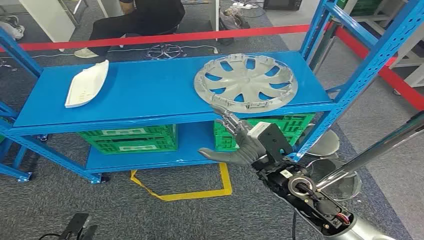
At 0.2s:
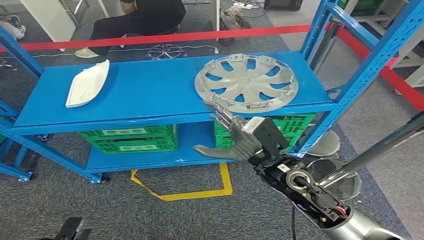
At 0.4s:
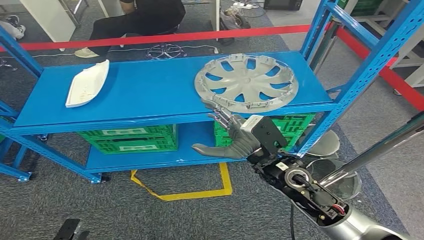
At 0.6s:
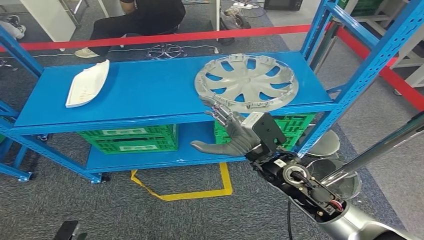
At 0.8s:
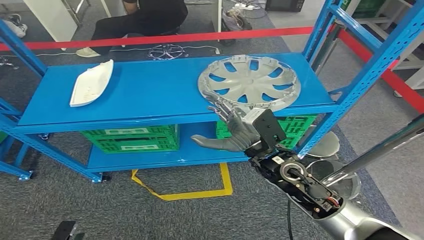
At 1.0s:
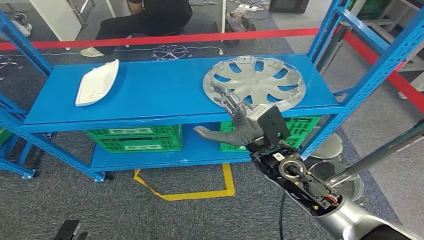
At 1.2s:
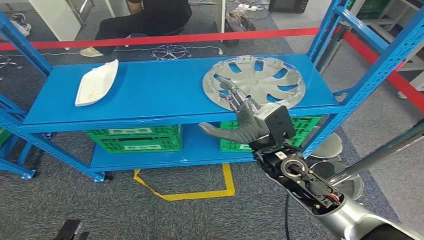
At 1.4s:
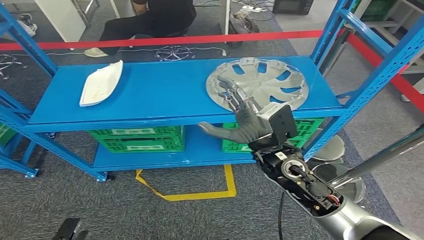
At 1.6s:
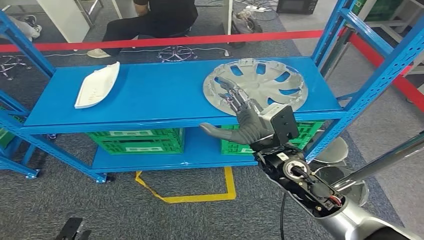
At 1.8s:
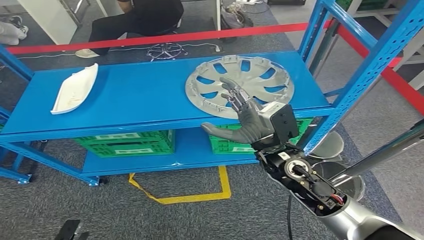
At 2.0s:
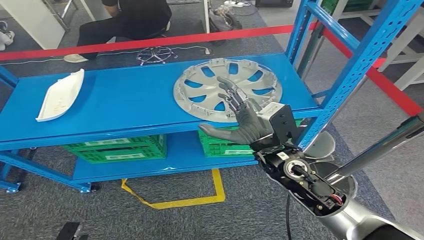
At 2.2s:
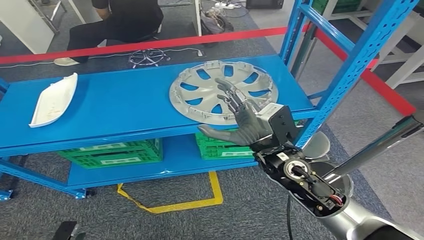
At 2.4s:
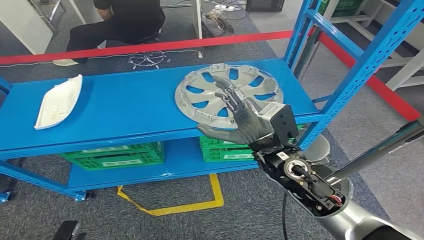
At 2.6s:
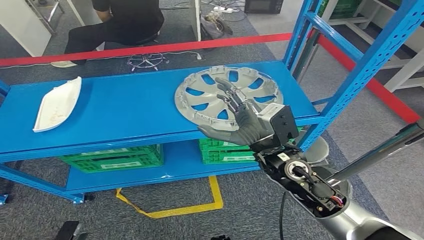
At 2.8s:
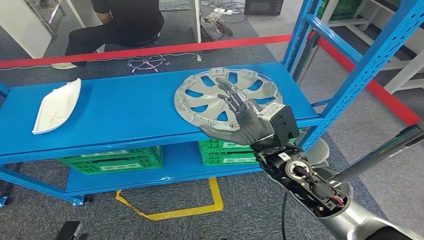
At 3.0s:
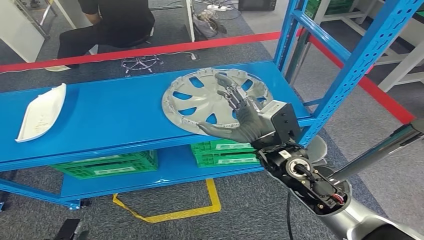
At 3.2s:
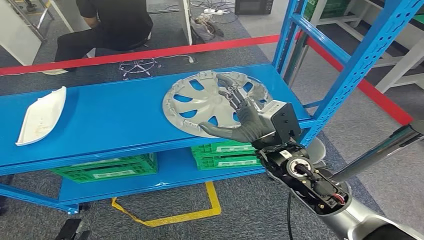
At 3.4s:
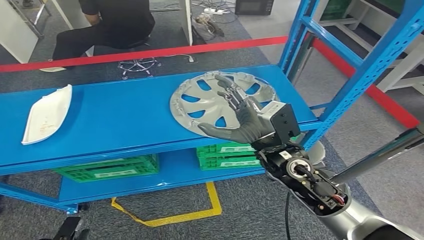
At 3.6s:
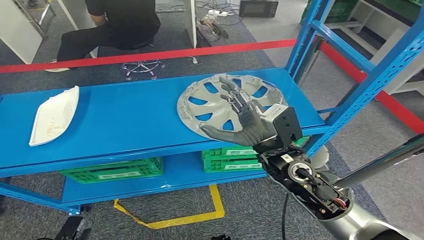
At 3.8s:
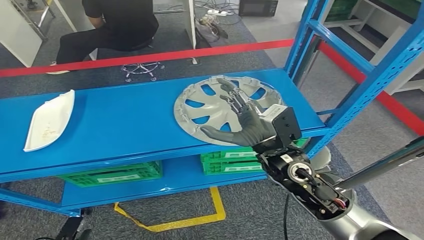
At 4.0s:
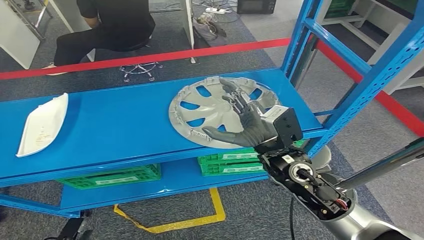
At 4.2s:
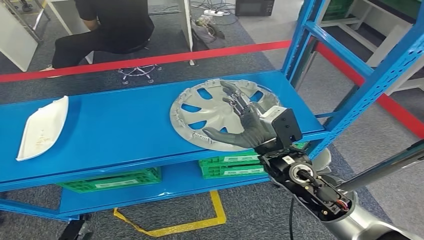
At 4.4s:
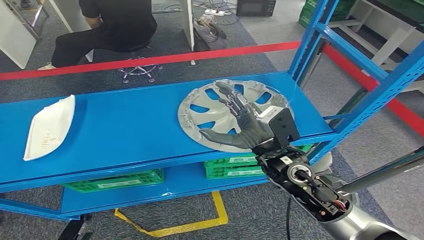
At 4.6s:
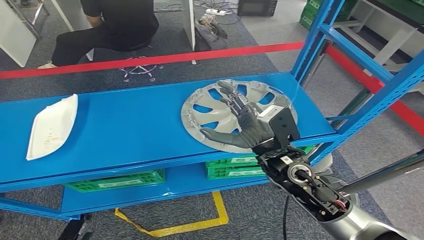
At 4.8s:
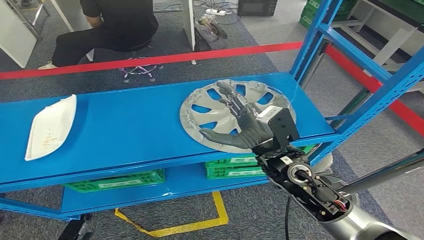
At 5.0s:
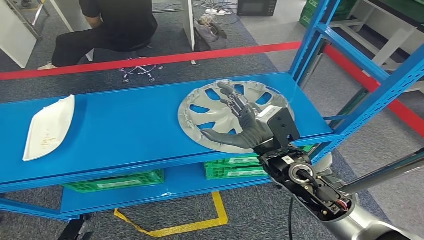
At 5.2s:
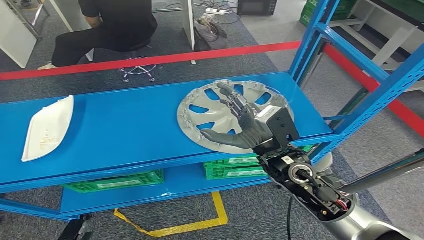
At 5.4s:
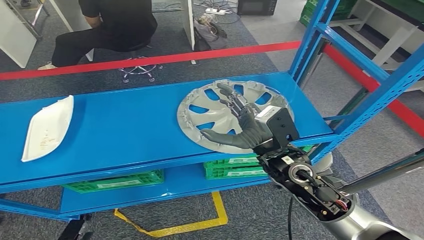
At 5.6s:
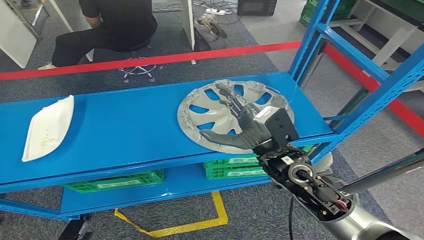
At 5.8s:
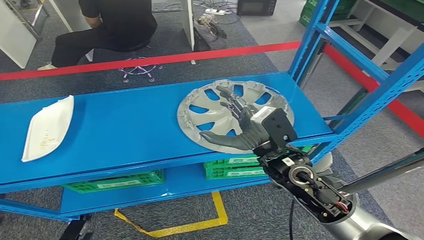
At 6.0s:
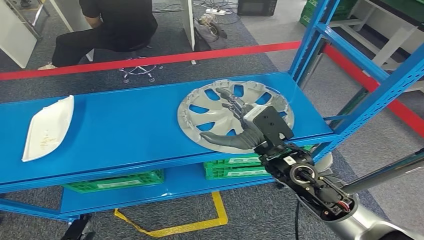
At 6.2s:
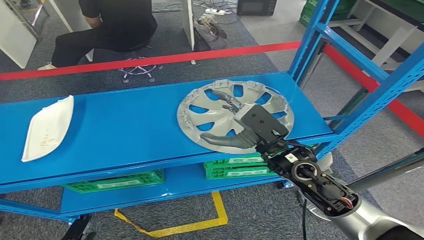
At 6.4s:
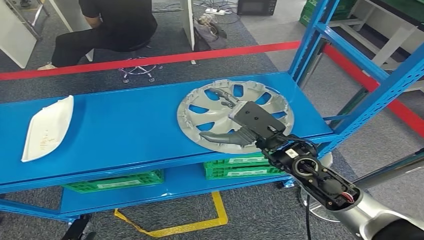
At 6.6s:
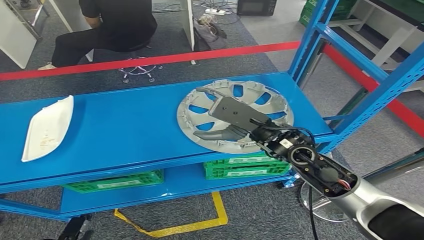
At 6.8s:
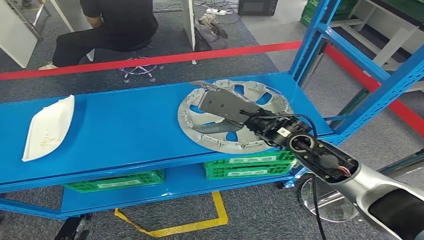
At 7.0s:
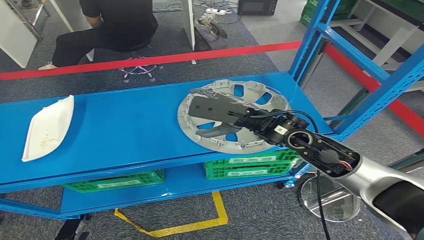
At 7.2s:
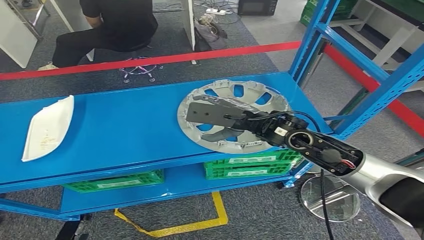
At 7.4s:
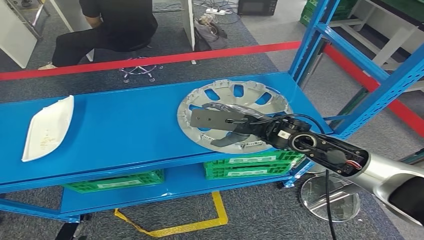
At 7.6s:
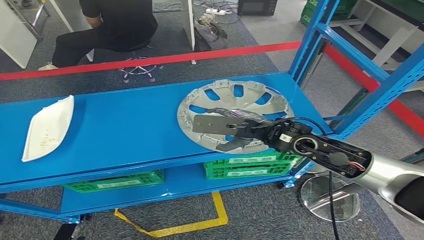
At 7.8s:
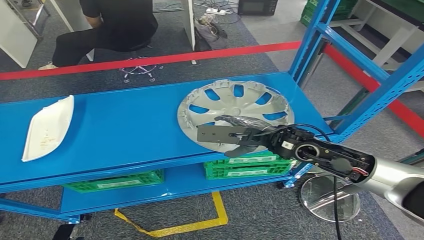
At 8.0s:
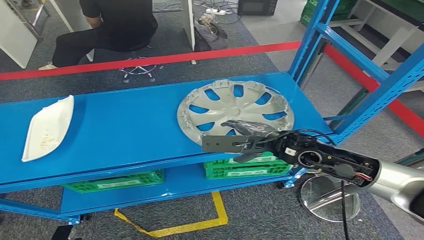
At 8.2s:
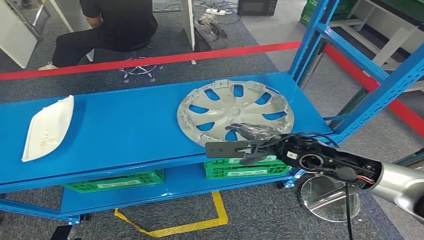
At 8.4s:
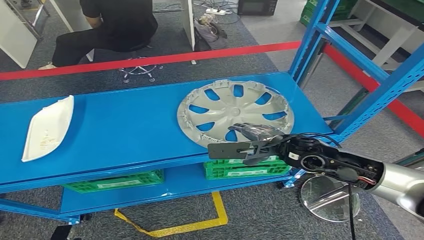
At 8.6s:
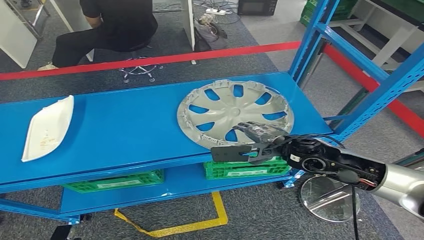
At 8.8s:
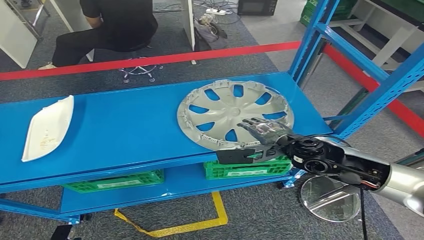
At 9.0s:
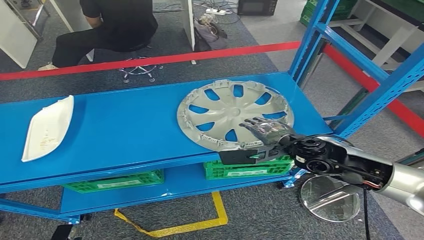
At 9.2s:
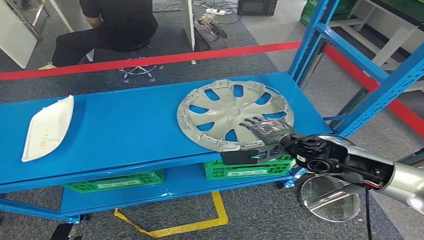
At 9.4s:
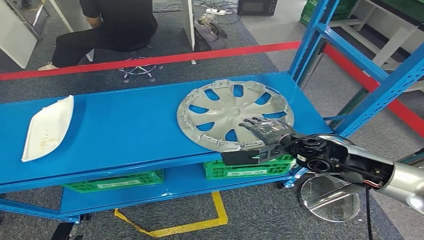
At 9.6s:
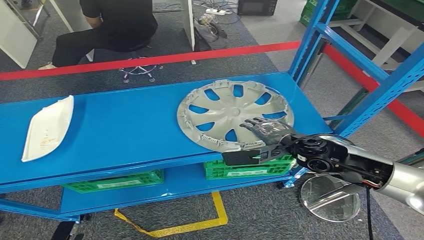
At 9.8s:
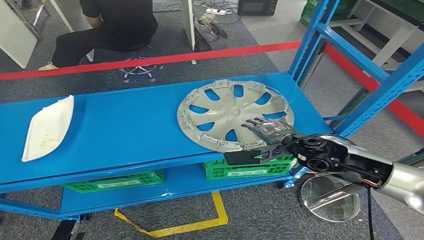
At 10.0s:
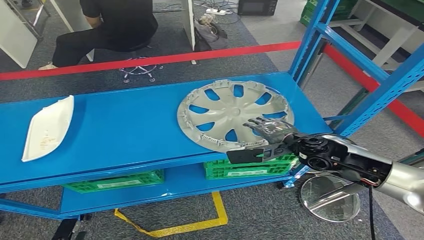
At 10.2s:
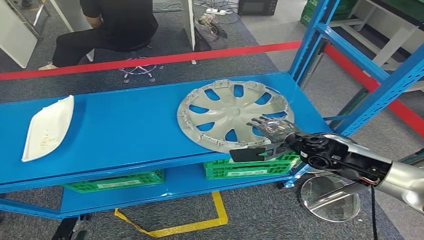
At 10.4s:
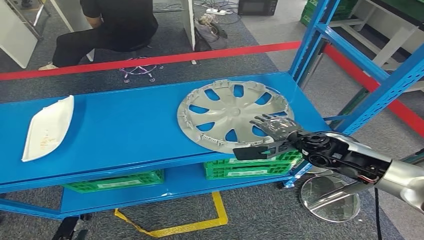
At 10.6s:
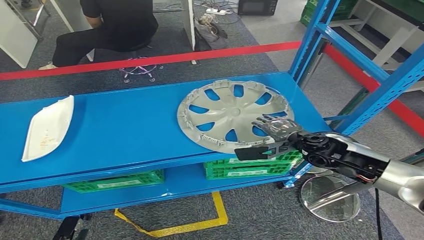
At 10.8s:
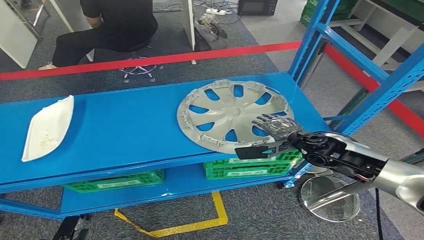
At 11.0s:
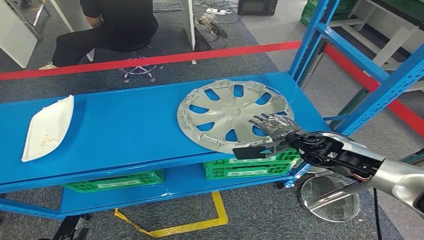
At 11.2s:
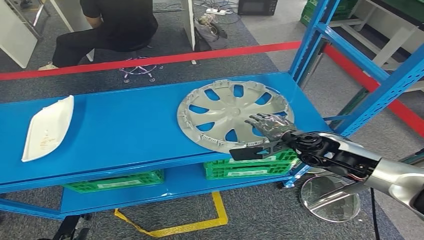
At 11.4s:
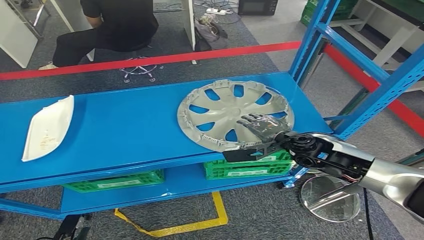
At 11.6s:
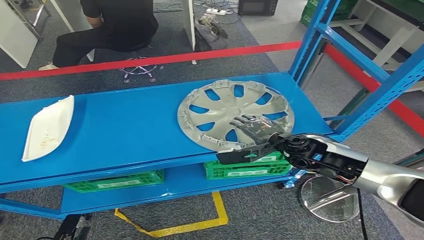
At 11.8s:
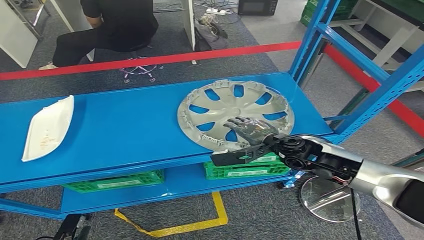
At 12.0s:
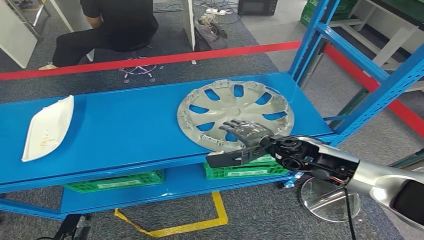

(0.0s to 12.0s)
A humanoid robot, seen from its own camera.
4.4s - 6.0s: The hands make only small movements.
6.0s - 7.6s: The right hand changes place by some 5 cm.
7.6s - 9.0s: The right hand is displaced downward by roughly 5 cm.
9.0s - 10.4s: The right hand changes place by some 5 cm.
10.4s - 12.0s: The right hand shifts some 5 cm to the left.

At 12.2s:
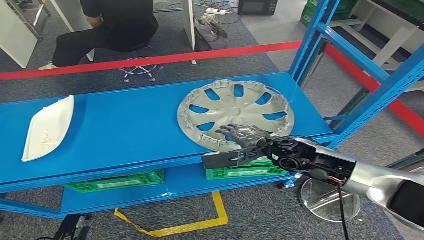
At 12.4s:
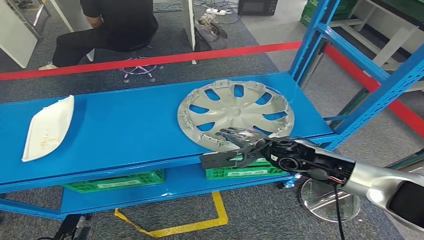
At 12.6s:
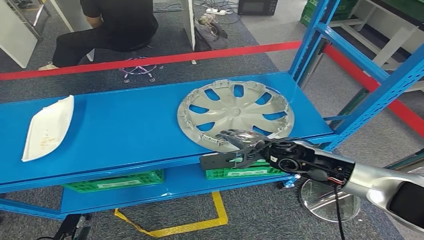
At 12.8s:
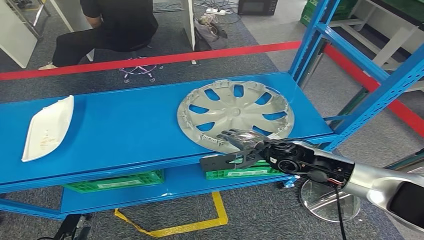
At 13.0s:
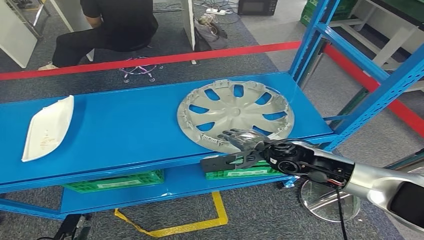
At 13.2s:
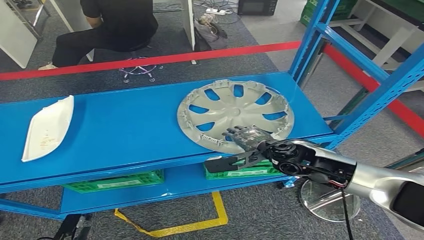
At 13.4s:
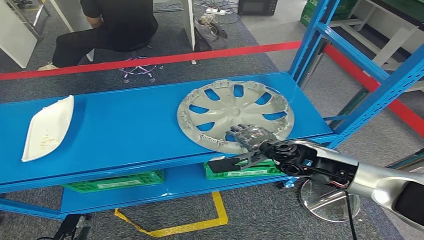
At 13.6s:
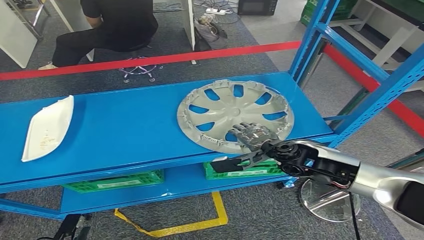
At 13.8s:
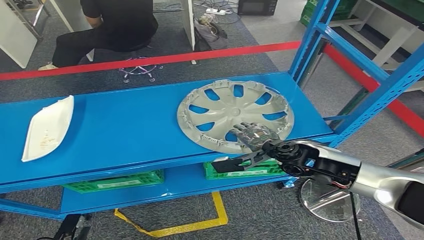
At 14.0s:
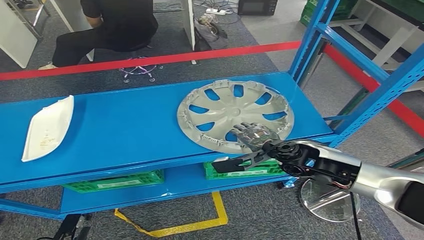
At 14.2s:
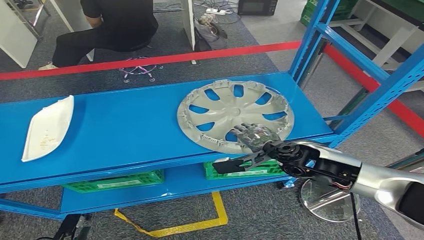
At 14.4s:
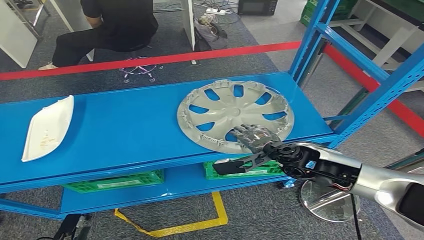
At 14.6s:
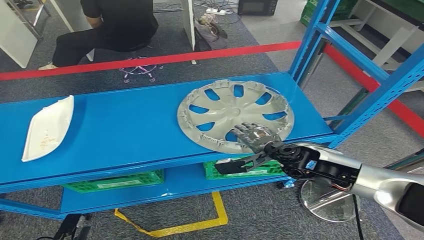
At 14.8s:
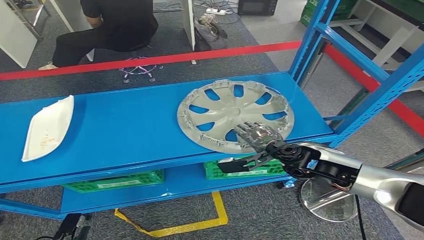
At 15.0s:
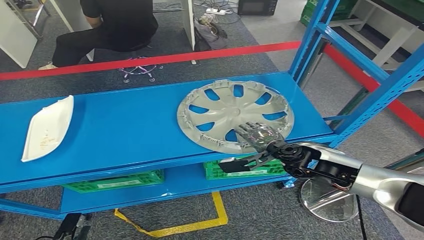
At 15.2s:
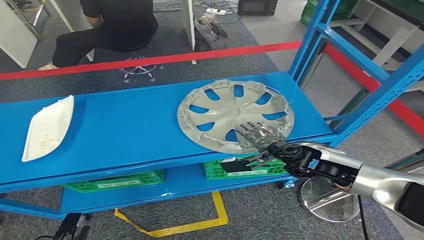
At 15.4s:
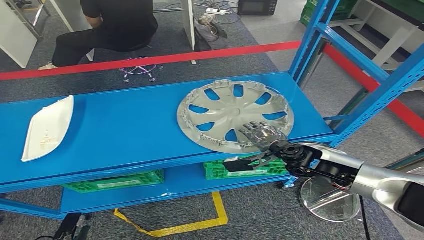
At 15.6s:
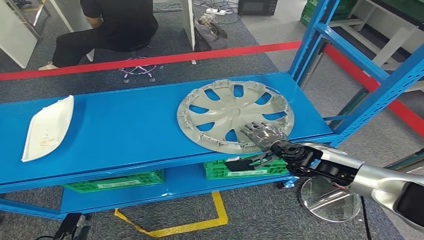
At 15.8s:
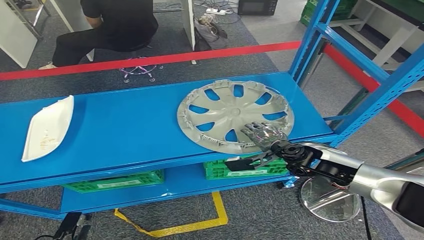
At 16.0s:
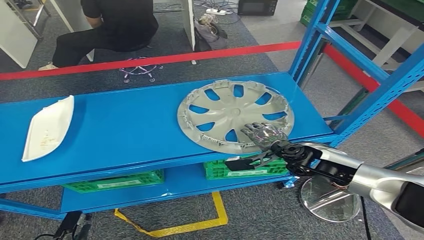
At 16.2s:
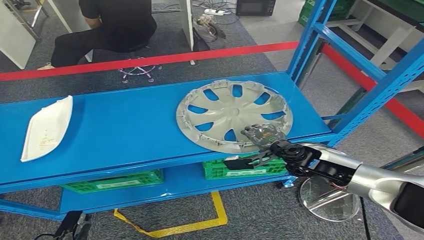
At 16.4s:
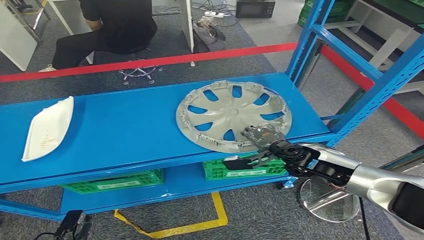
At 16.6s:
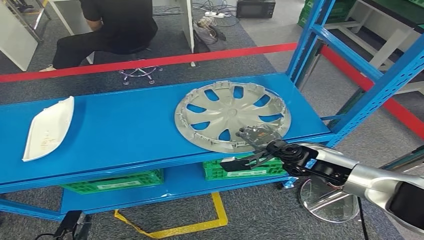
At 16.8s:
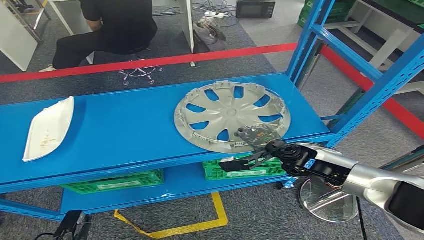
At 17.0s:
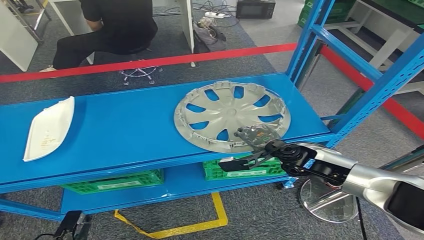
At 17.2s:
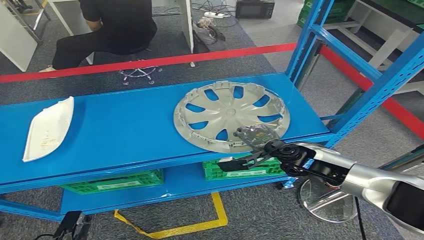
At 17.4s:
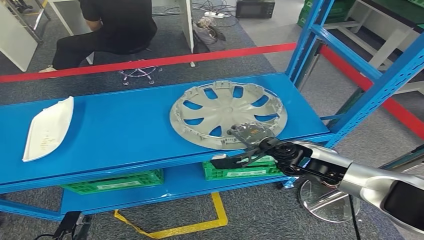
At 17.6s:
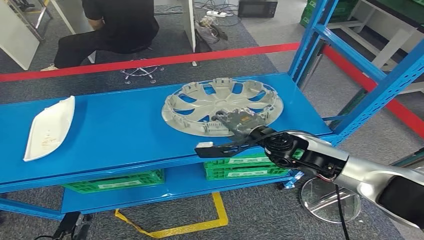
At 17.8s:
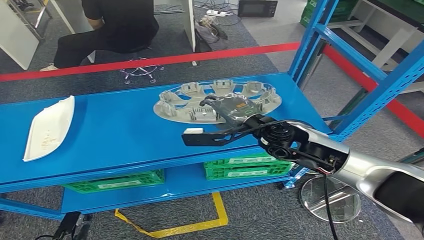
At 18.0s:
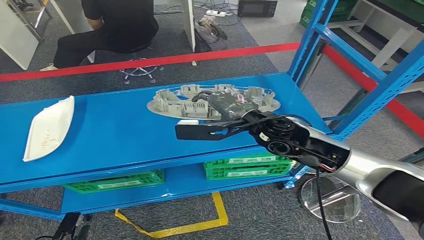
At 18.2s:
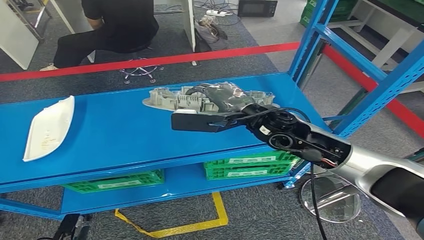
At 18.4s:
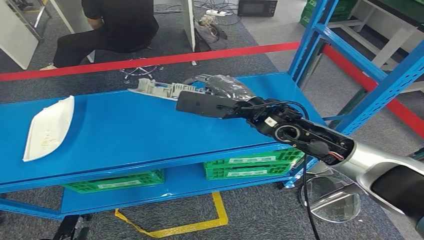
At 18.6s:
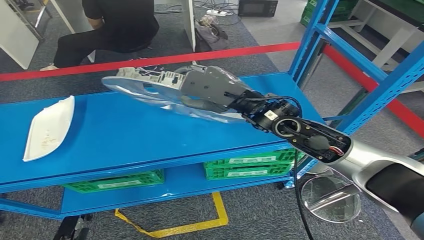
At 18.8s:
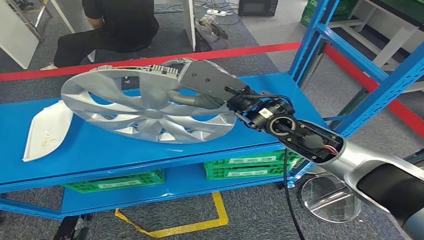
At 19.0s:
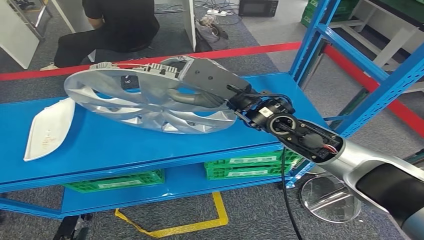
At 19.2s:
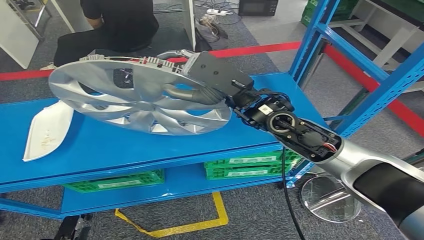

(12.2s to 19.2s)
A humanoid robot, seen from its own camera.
12.2s - 13.6s: The hands make only small movements.
13.6s - 16.4s: The hands stay close to where they were, moving slightly.
16.4s - 17.8s: The right hand goes about 15 cm upward and to the left.
